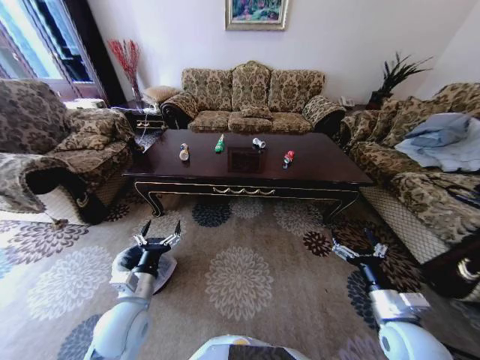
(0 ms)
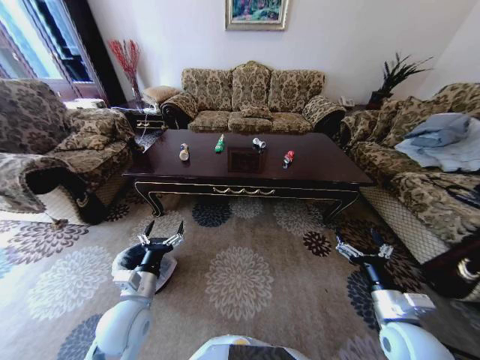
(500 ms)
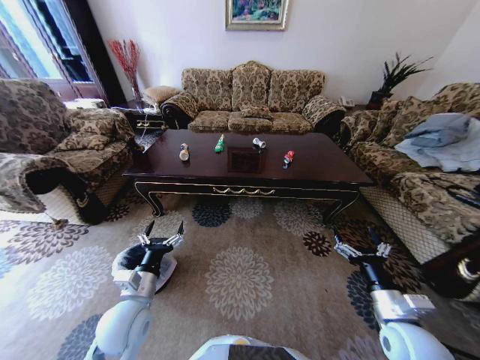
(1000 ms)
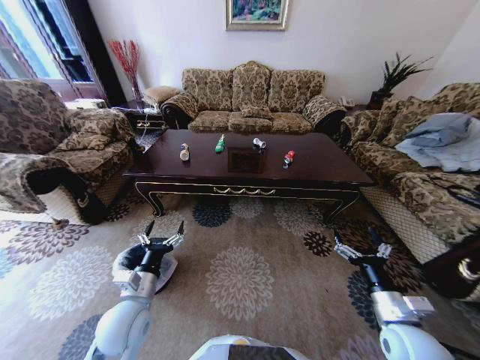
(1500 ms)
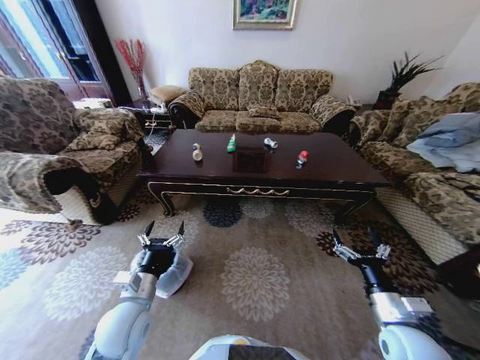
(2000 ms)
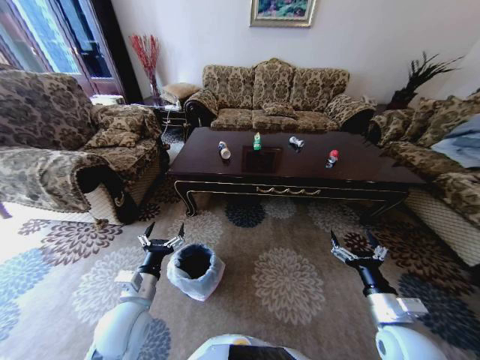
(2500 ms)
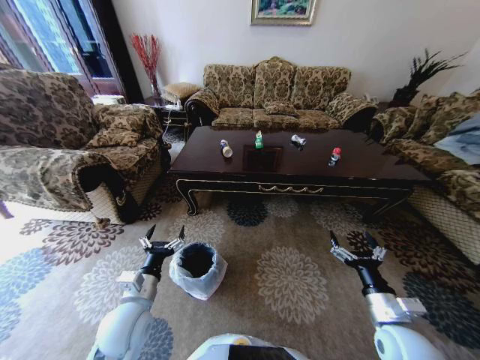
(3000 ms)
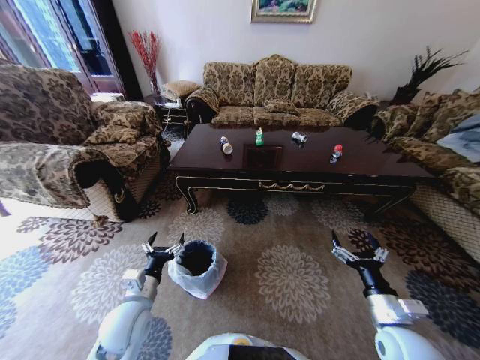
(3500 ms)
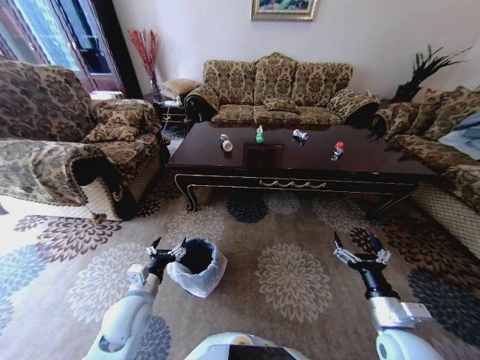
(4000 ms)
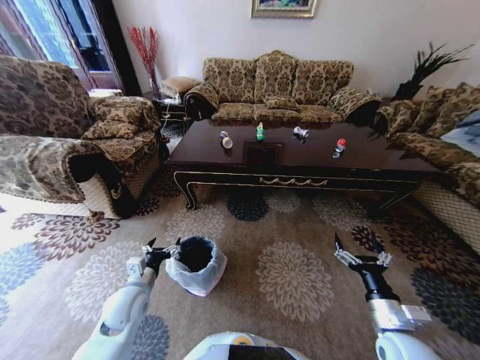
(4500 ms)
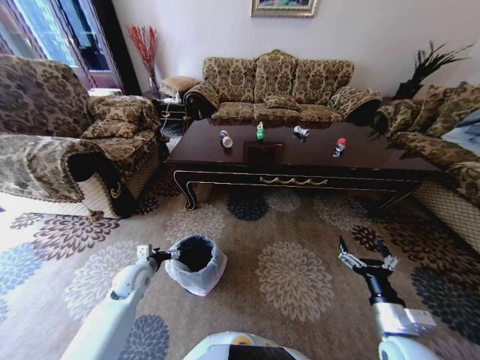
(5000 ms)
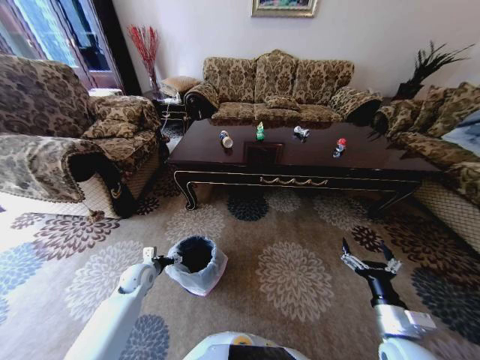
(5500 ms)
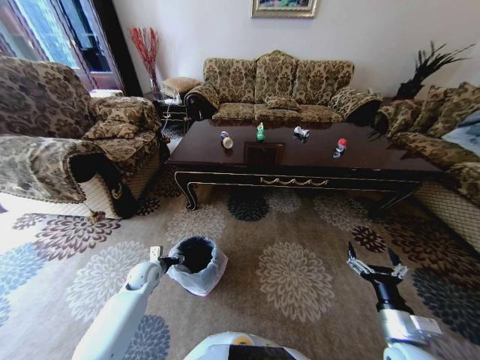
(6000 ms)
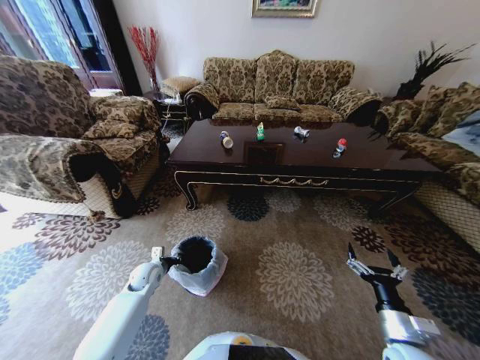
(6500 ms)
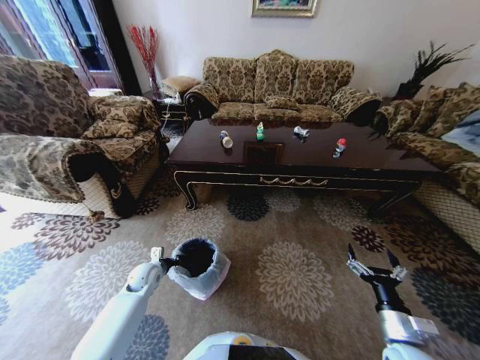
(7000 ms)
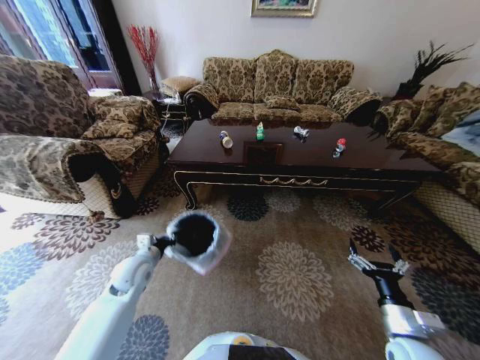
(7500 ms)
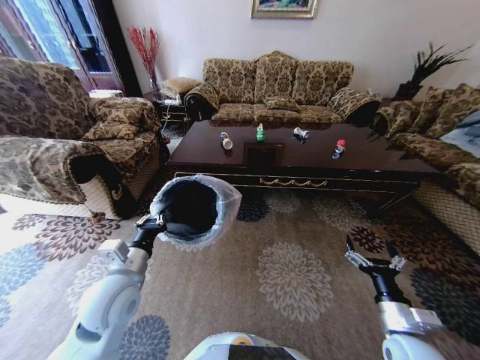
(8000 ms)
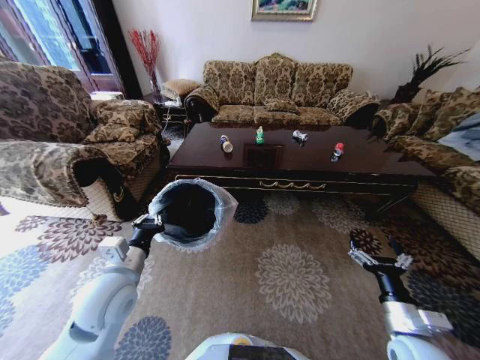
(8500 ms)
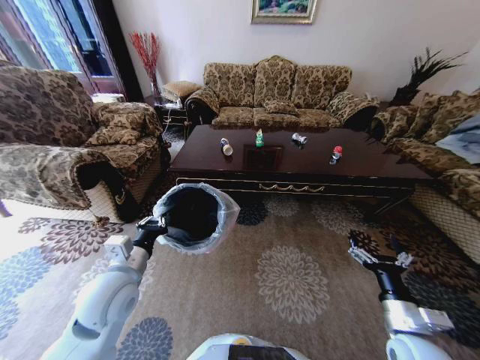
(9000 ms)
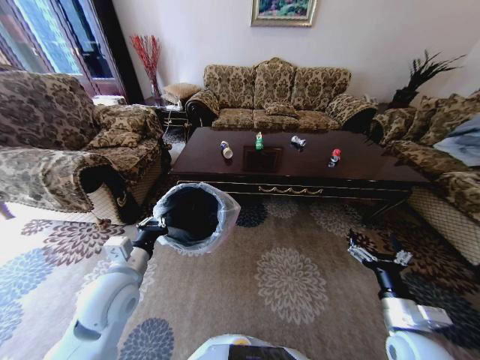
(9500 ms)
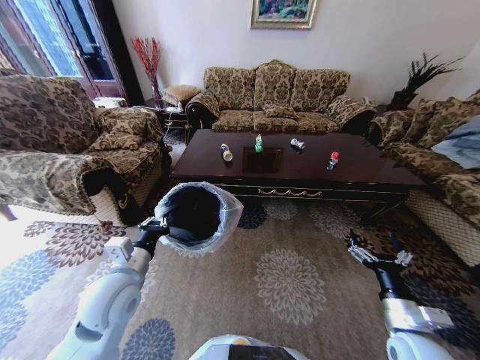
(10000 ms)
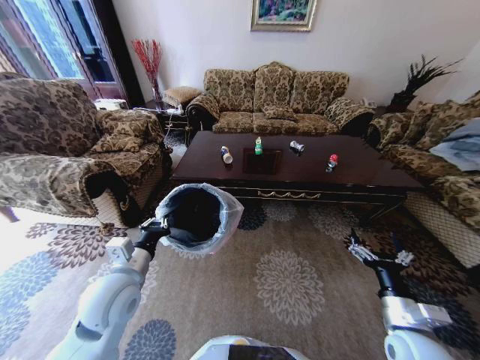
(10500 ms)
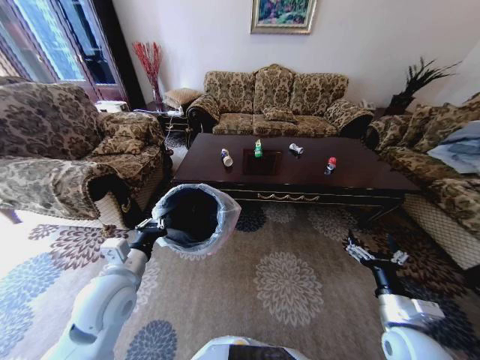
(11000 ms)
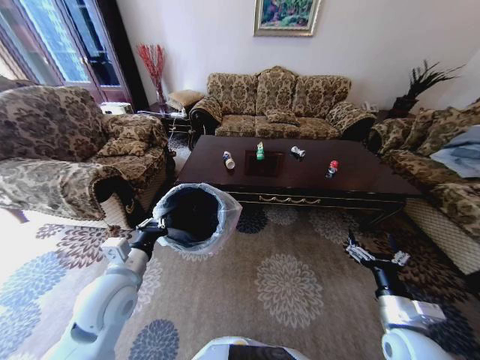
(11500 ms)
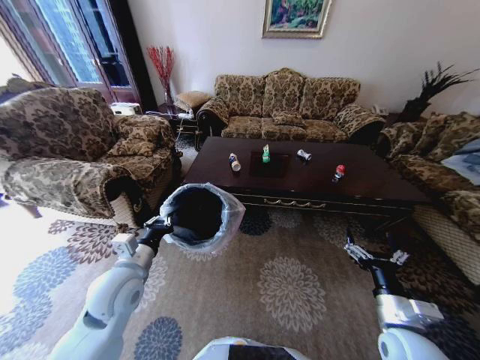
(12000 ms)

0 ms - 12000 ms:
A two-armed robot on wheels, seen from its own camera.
Task of the whole recording: Move to the front of the table and place the trash on the table into the trash bin.
4000 ms - 6000 ms: The left gripper goes approximately 20 cm forward, downward and to the left.
6000 ms - 8000 ms: The left gripper is displaced upward and backward by about 25 cm, and closes up.

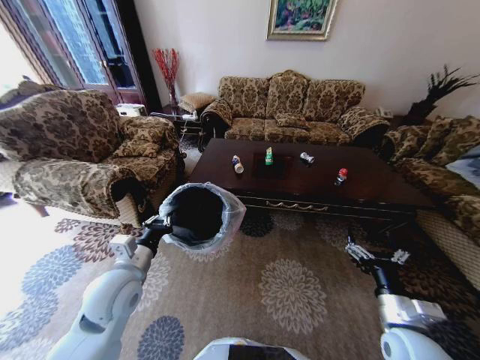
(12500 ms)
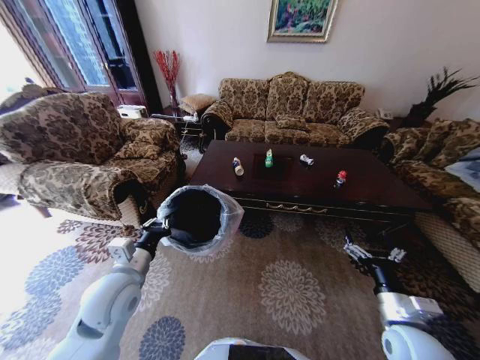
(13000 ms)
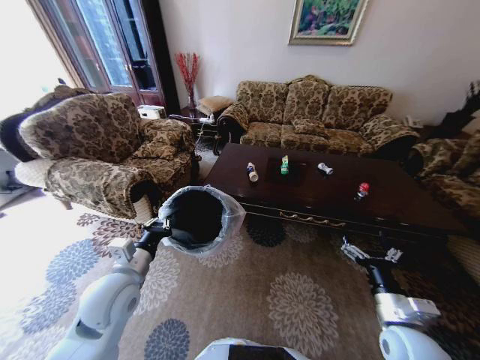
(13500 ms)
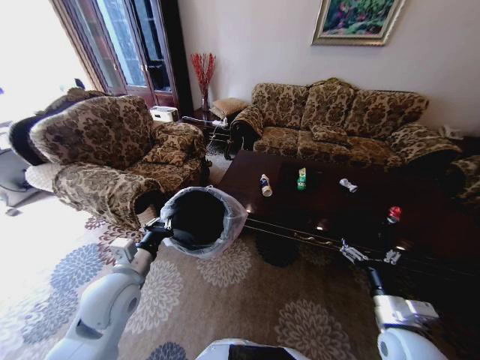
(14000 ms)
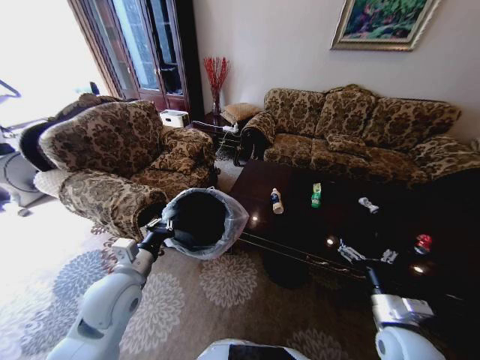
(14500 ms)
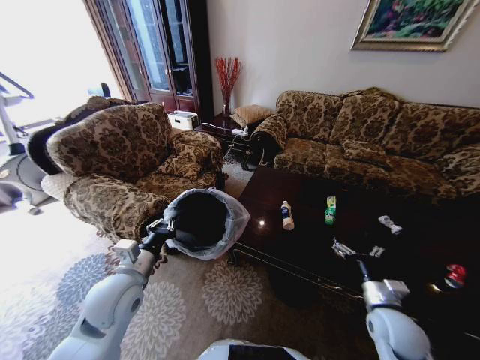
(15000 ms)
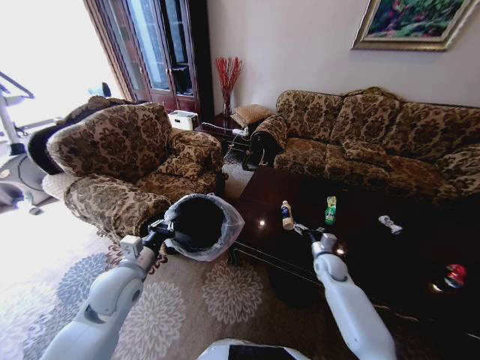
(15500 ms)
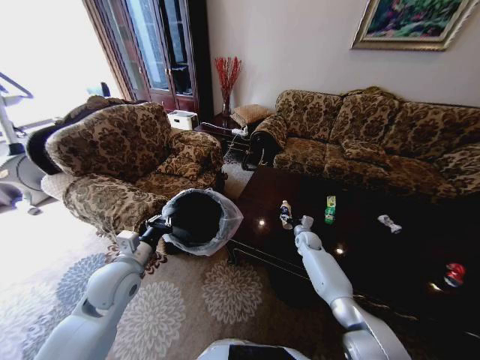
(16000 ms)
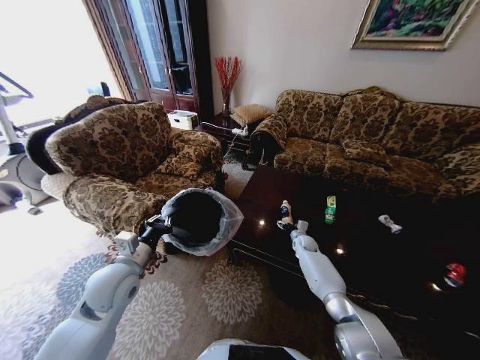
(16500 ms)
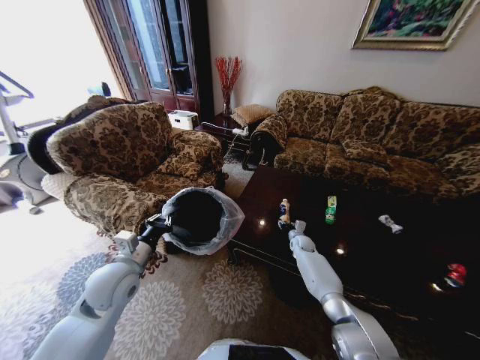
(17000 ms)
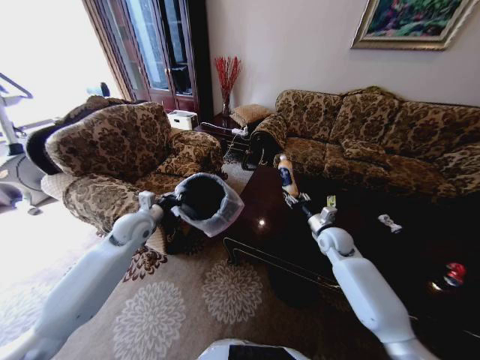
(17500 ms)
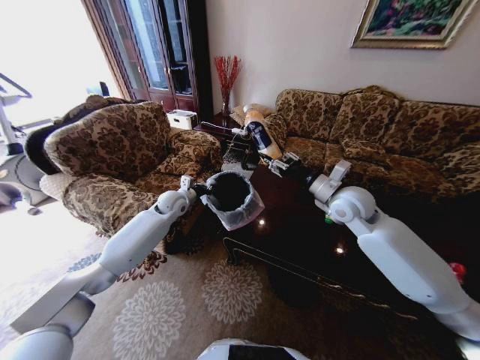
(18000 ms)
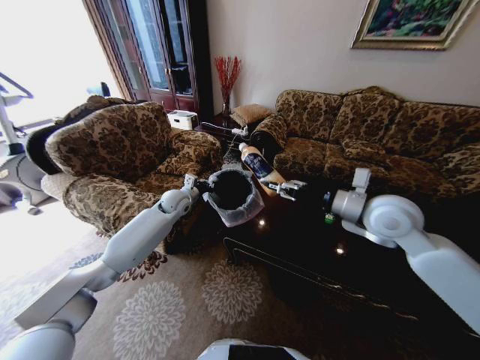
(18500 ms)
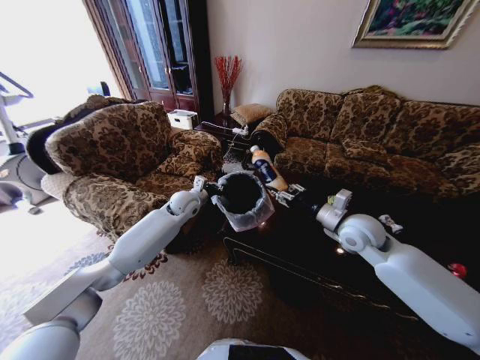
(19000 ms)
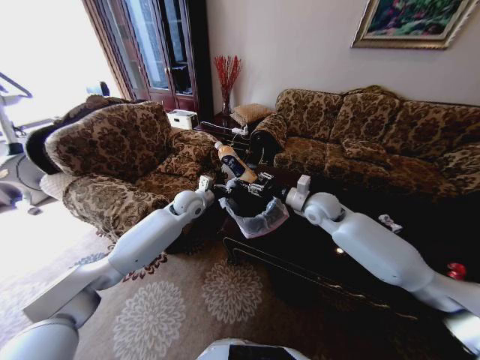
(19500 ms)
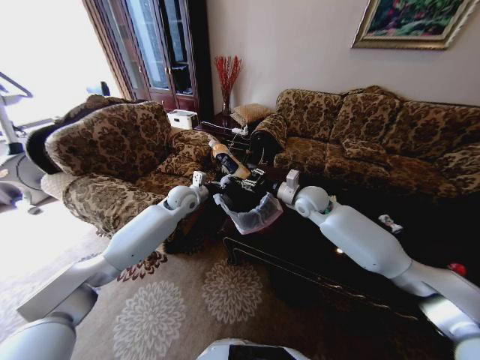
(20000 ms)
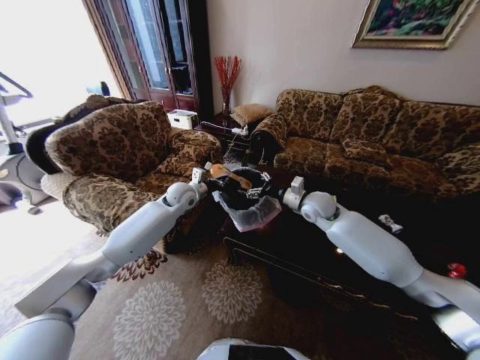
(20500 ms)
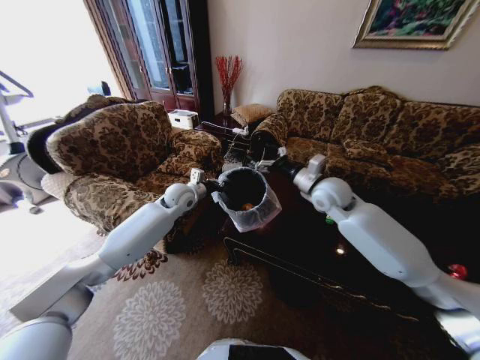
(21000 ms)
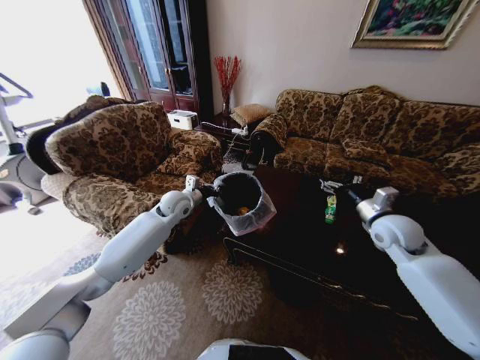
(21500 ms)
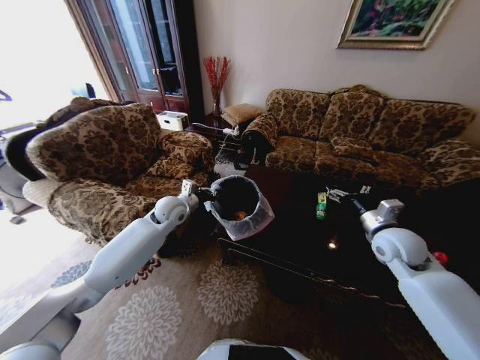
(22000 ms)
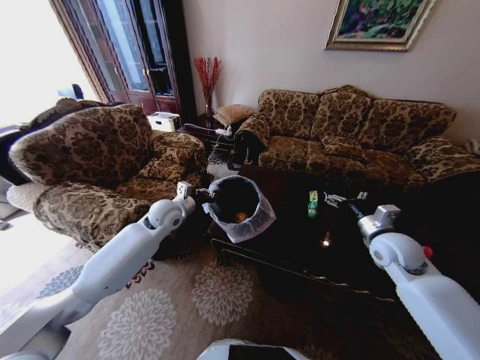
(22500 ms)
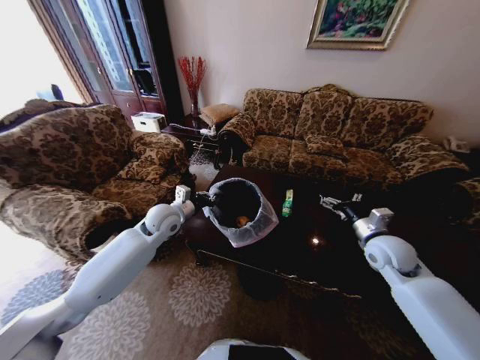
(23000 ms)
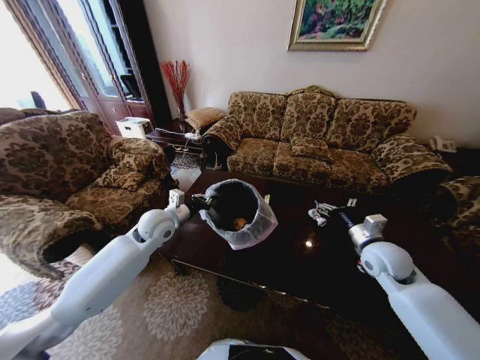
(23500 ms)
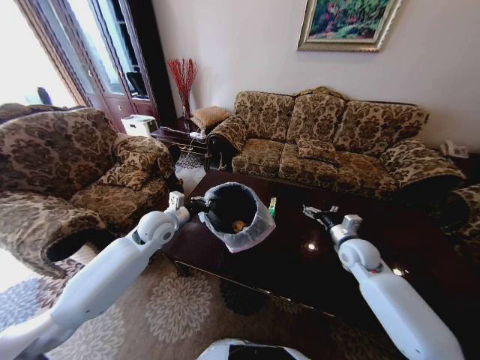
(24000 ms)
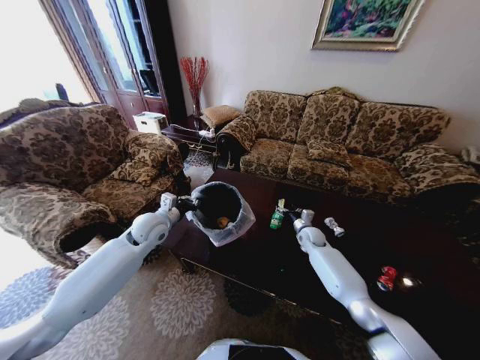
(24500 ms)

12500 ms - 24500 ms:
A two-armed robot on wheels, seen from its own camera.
Task of the whole recording: Move to the front of the table and place the trash on the table into the trash bin.
14500 ms - 16500 ms: The right gripper goes about 40 cm forward and downward.
16500 ms - 18500 ms: The left gripper shifts some 25 cm forward, while the right gripper shifts approximately 40 cm upward, and closes.
18500 ms - 20500 ms: The right gripper travels forward, downward and to the left by roughly 15 cm, and opens.
20500 ms - 22500 ms: The right gripper is displaced to the right and backward by some 20 cm. The left gripper goes roughly 10 cm backward.
22500 ms - 24500 ms: The left gripper changes place by about 5 cm. The right gripper heads downward, forward and to the left, covering some 25 cm.

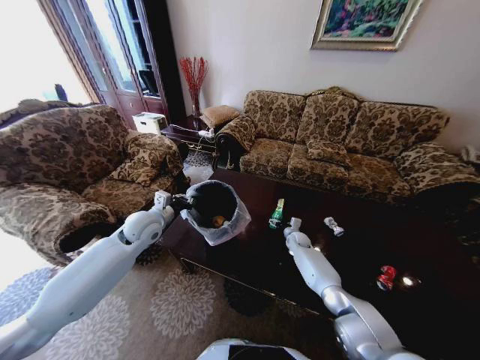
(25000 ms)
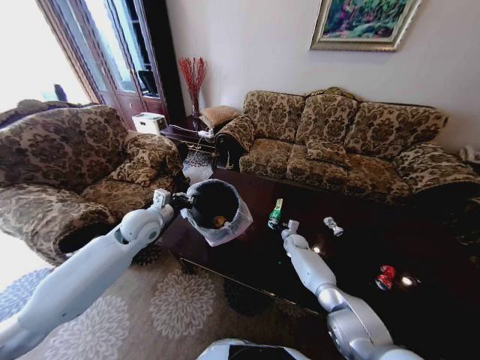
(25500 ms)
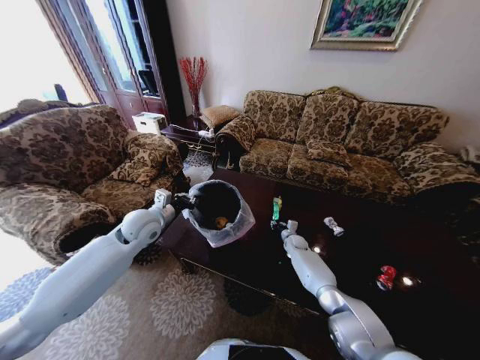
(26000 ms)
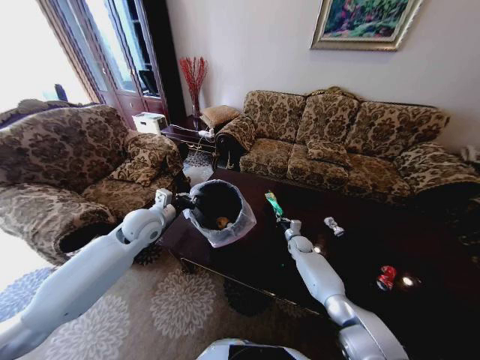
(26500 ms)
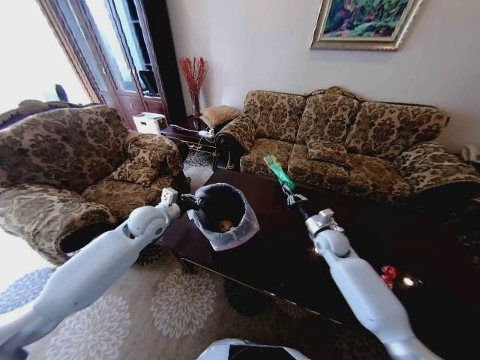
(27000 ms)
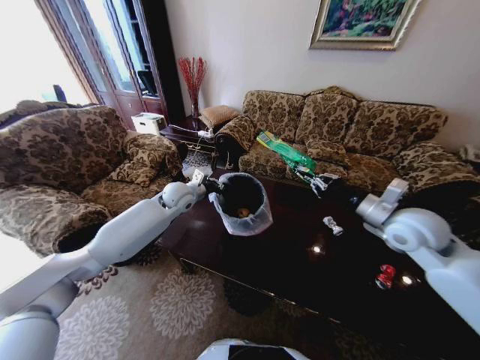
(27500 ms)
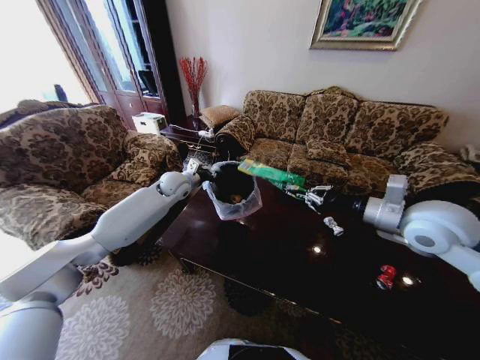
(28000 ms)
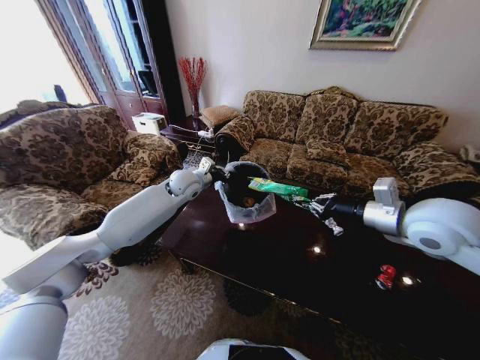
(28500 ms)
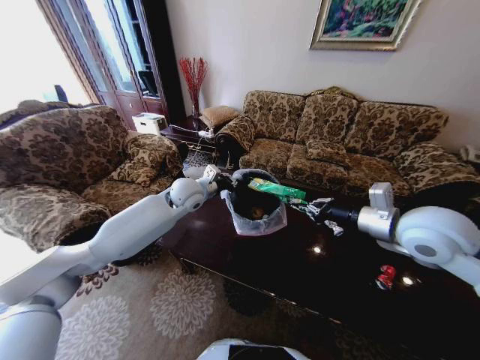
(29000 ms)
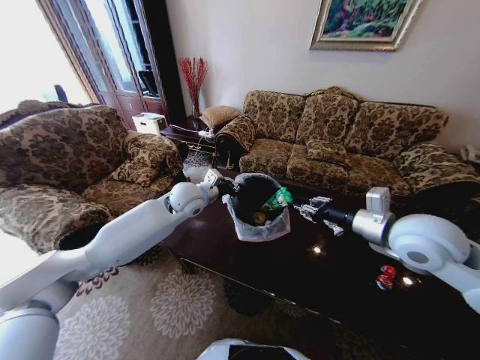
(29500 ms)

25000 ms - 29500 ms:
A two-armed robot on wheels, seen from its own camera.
Task of the whole recording: Move to the front of the table and place the trash on the table into the trash bin.
25000 ms - 27000 ms: The right gripper heads upward and backward, covering roughly 15 cm, and closes.
27000 ms - 29500 ms: The right gripper travels upward and backward by some 30 cm; the left gripper travels to the right and upward by approximately 15 cm.
